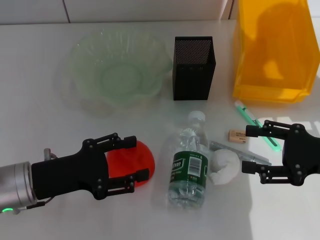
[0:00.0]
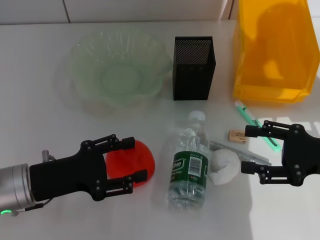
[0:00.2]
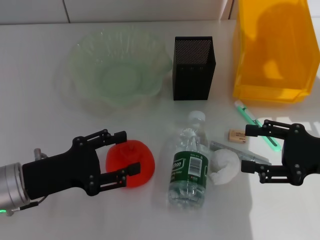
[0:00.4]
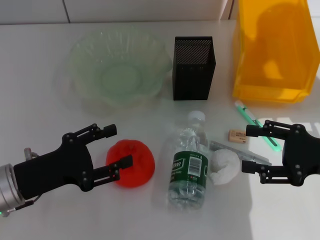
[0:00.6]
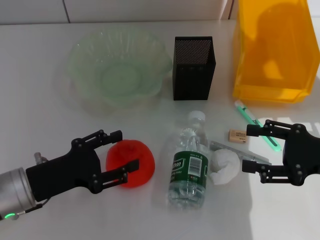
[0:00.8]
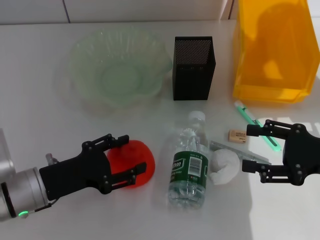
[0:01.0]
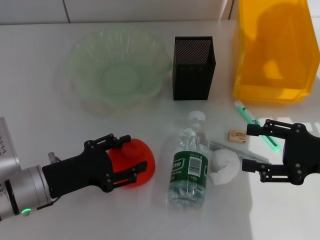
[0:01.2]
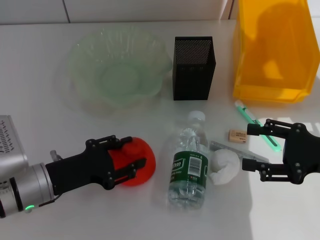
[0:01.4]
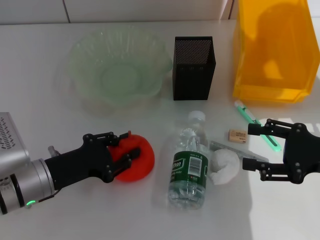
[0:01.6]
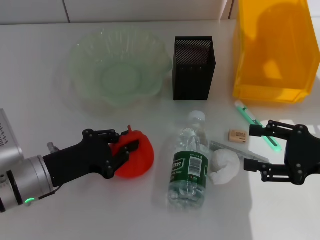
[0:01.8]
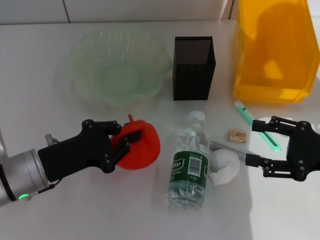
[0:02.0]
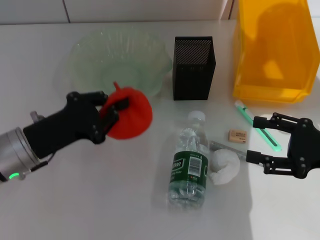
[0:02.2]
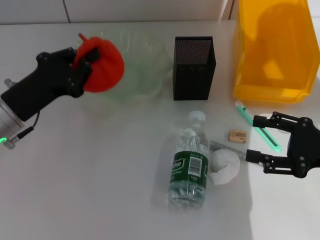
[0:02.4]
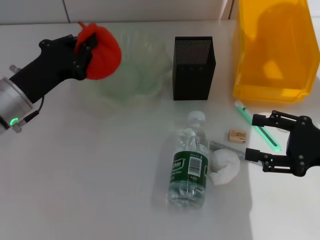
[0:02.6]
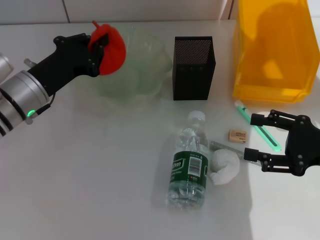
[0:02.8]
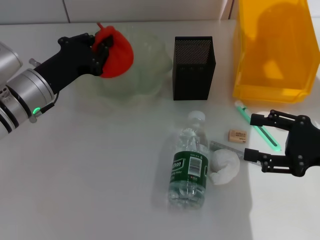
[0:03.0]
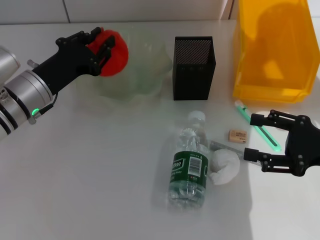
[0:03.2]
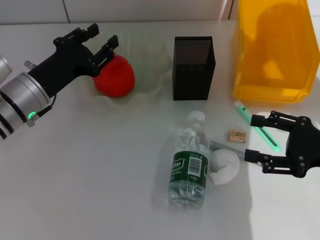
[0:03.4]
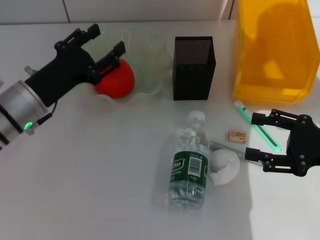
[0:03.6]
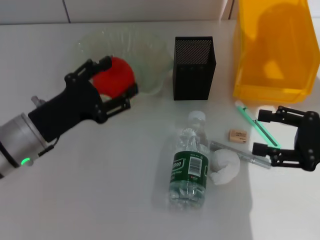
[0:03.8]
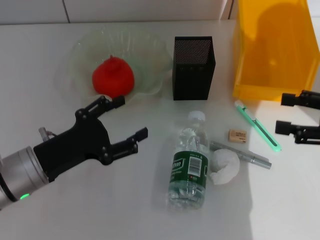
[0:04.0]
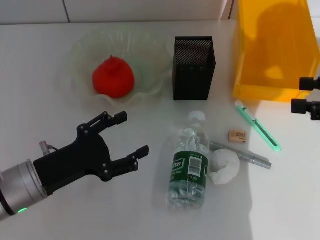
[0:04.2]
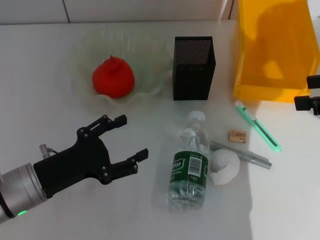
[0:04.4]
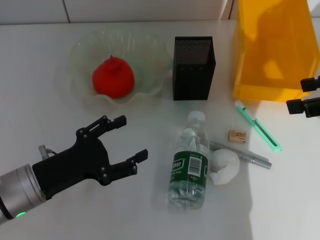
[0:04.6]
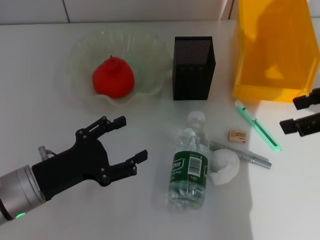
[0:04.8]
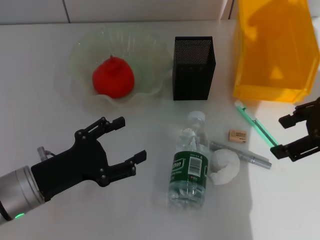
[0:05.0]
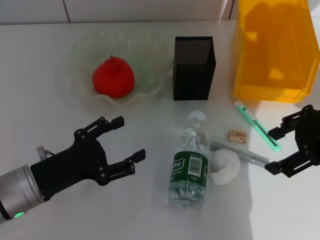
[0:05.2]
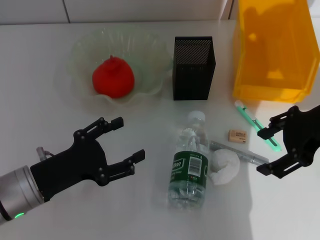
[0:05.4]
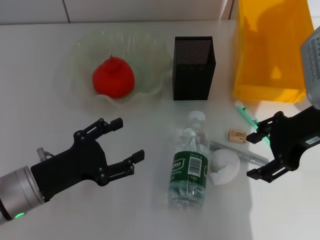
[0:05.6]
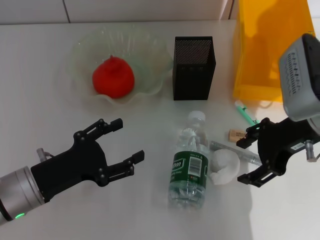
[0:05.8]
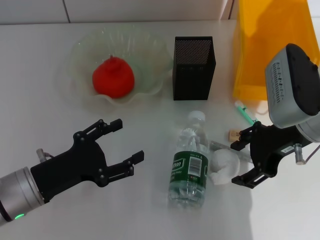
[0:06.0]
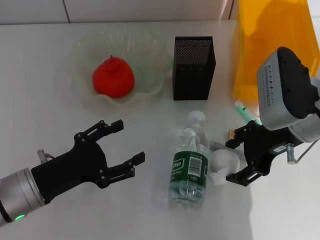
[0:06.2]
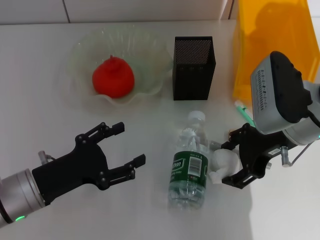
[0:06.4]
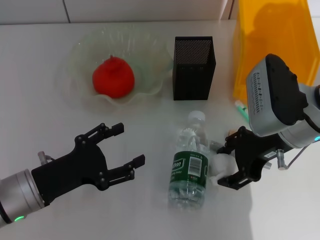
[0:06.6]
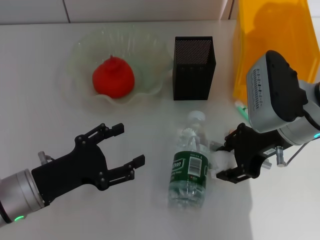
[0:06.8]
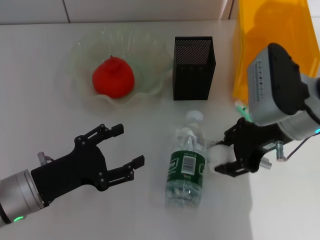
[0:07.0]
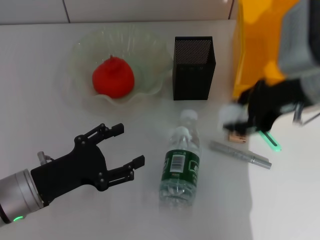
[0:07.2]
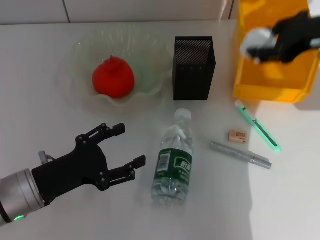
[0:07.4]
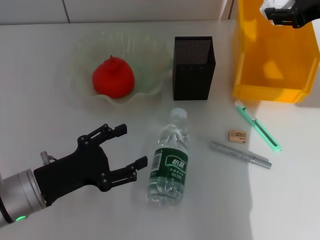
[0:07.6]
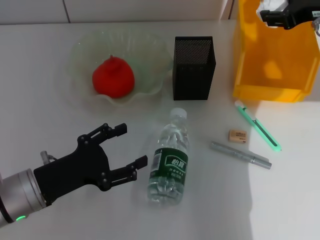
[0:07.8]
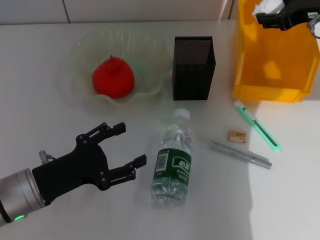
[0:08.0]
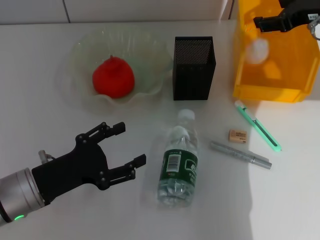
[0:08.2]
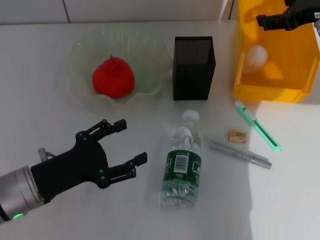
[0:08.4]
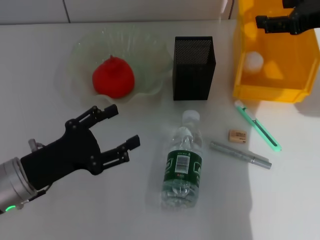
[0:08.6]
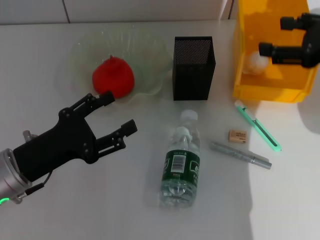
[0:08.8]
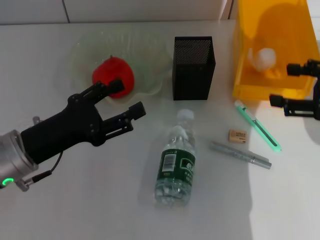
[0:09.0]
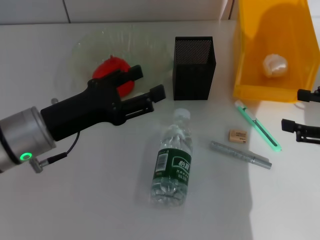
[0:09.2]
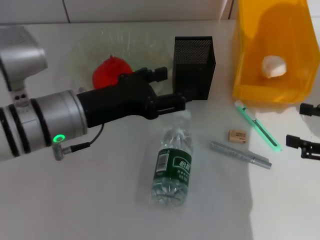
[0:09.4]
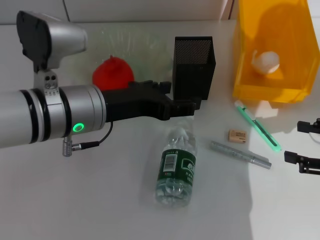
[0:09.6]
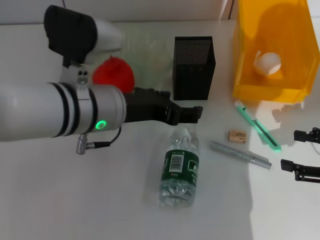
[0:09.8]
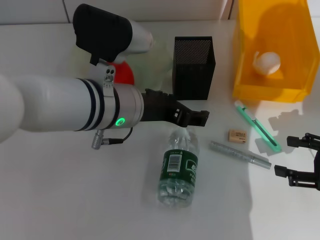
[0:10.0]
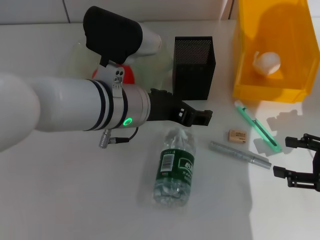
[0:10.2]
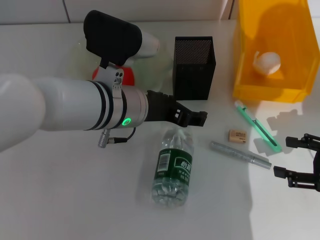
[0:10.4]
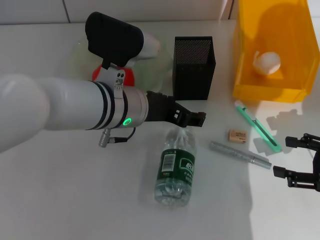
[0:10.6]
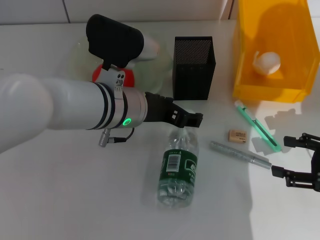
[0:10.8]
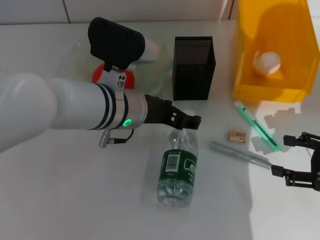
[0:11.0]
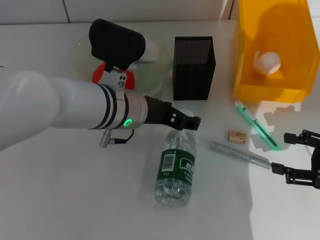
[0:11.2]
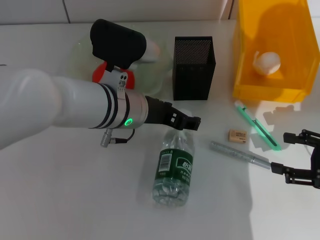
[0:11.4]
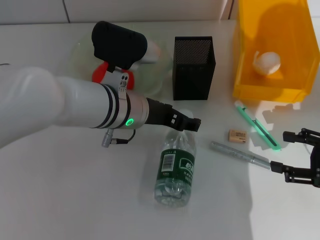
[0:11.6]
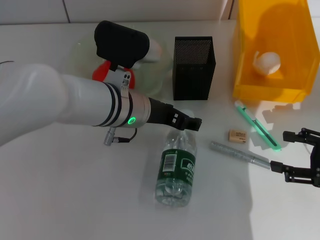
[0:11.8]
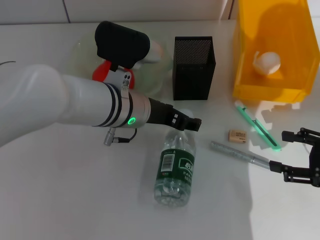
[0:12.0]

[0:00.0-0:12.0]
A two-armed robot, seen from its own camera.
Step, 0:00.0 to 0:01.6: Grab the orange with the left hand.
Step, 0:01.8 to 0:03.4: Place the orange into the fruit bowl with the left hand.
Step, 0:03.6 to 0:06.6: Grab the paper ball with the right hand.
Step, 0:06.8 to 0:08.2: Place the paper ball into the trash can with the right hand.
0:00.0 to 0:01.6: The left gripper closes its fingers.
0:01.6 to 0:03.0: The left gripper is displaced forward and upward by roughly 10 cm, and closes.
0:03.0 to 0:04.4: The left gripper heads backward, covering some 10 cm, and opens. Meanwhile the right gripper travels upward by some 15 cm.
0:04.4 to 0:06.0: The right gripper shifts approximately 15 cm to the left and downward.
0:06.0 to 0:07.6: The right gripper heads upward, forward and to the right, covering approximately 15 cm.
0:07.6 to 0:09.0: The right gripper goes about 15 cm backward, downward and to the right, and opens; the left gripper shifts by approximately 5 cm.
0:09.0 to 0:10.4: The left gripper heads to the right and forward, covering some 15 cm. Meanwhile the right gripper is displaced downward and backward by about 10 cm.
0:10.4 to 0:12.0: The grippers stay close to where they were, moving slightly.

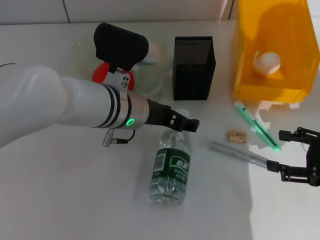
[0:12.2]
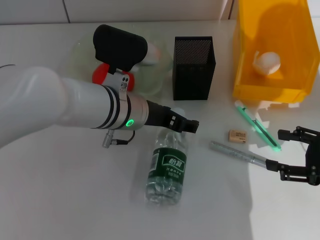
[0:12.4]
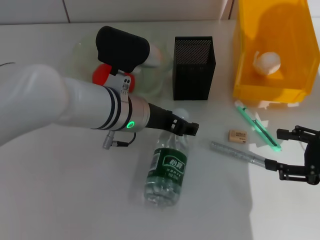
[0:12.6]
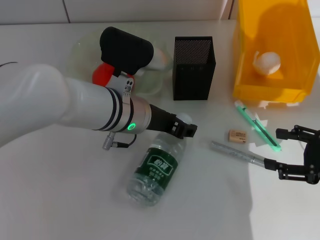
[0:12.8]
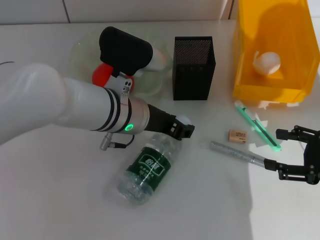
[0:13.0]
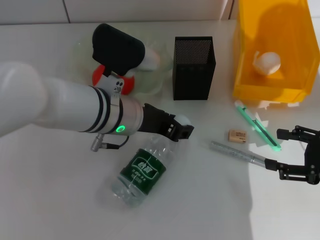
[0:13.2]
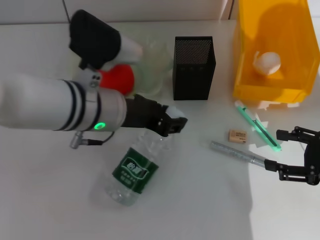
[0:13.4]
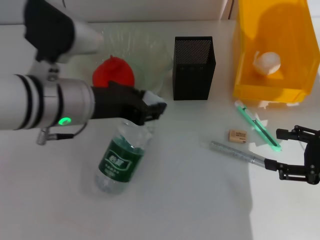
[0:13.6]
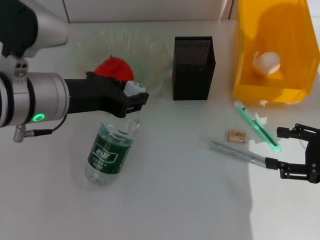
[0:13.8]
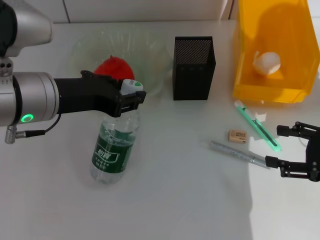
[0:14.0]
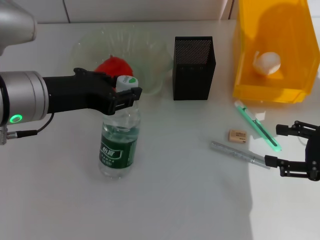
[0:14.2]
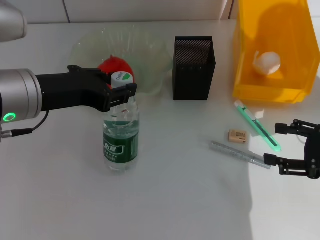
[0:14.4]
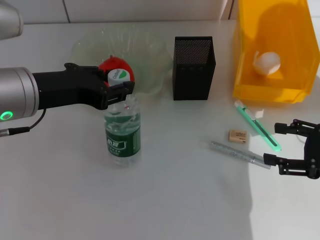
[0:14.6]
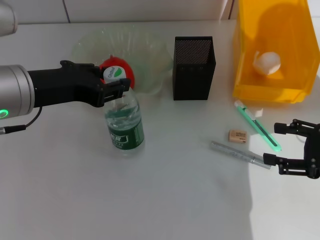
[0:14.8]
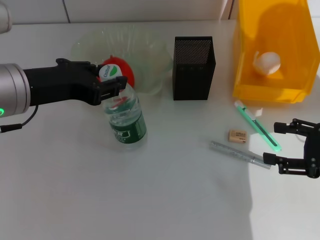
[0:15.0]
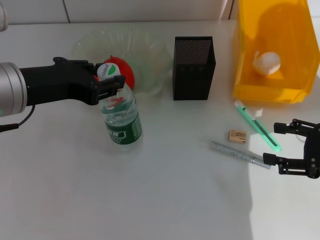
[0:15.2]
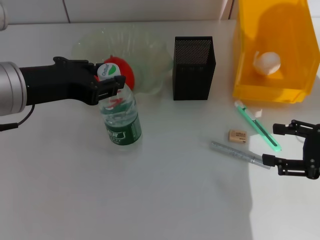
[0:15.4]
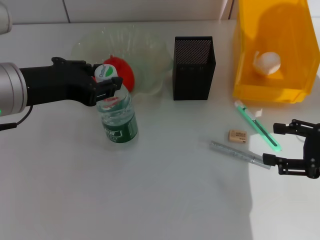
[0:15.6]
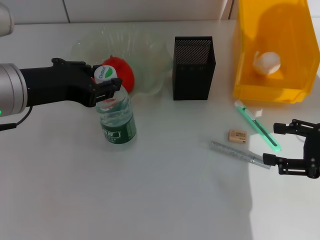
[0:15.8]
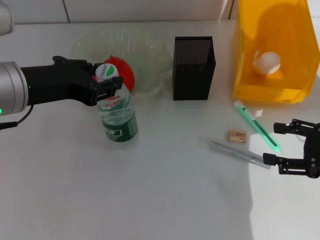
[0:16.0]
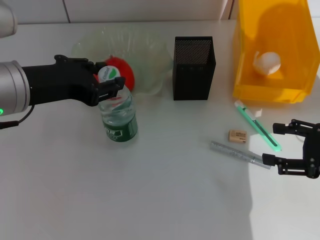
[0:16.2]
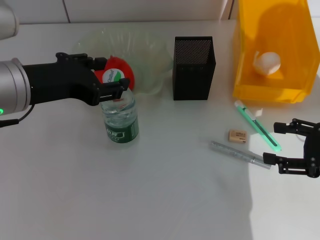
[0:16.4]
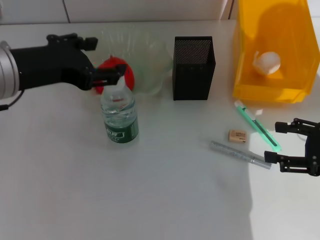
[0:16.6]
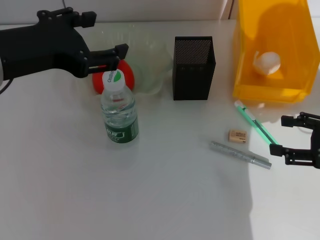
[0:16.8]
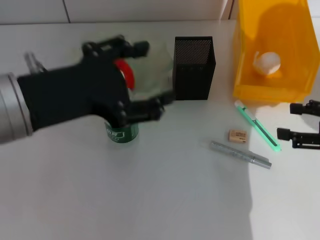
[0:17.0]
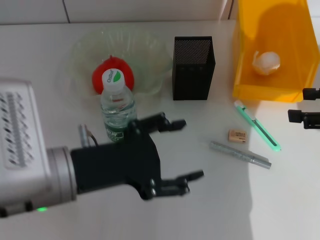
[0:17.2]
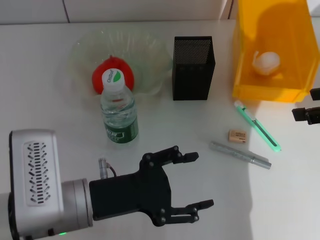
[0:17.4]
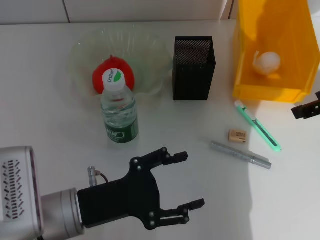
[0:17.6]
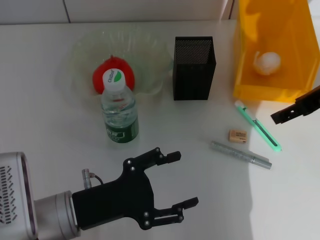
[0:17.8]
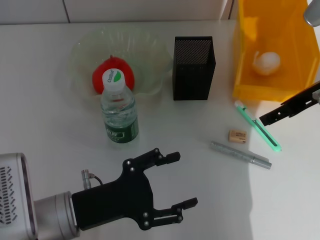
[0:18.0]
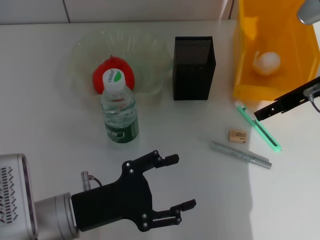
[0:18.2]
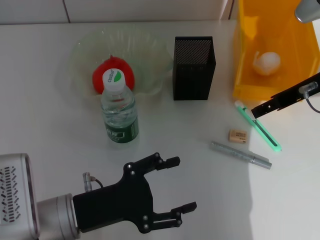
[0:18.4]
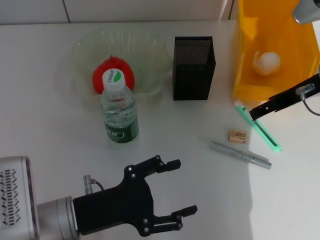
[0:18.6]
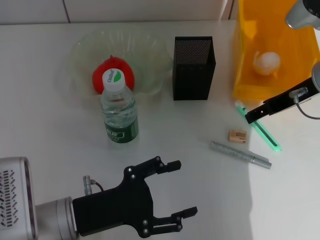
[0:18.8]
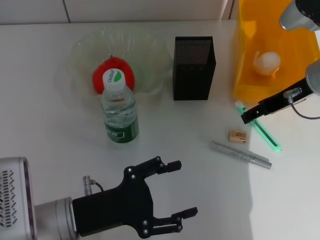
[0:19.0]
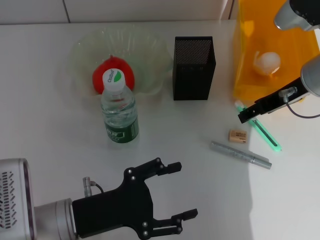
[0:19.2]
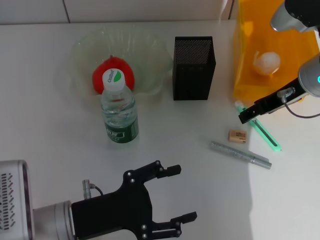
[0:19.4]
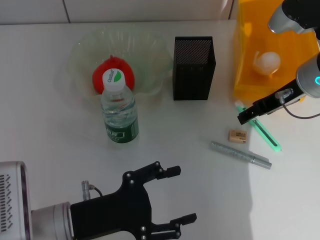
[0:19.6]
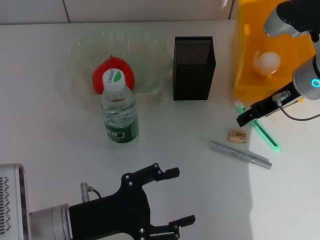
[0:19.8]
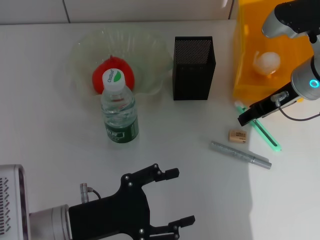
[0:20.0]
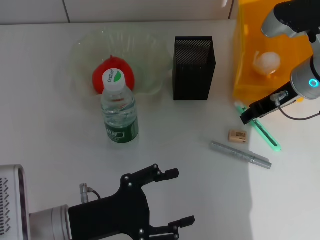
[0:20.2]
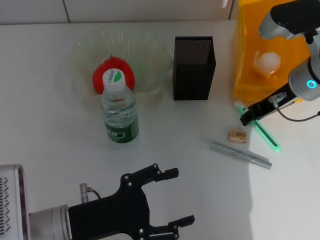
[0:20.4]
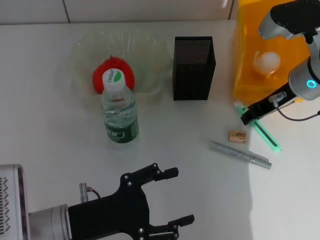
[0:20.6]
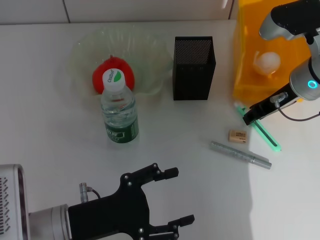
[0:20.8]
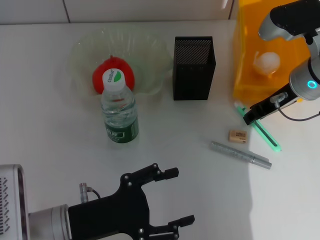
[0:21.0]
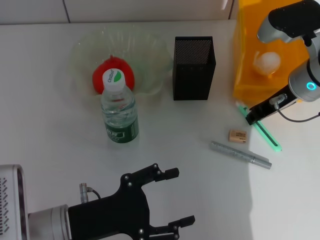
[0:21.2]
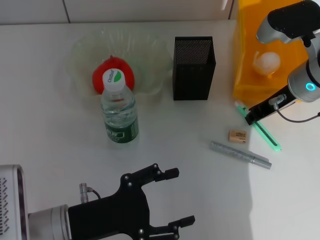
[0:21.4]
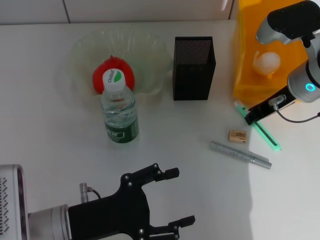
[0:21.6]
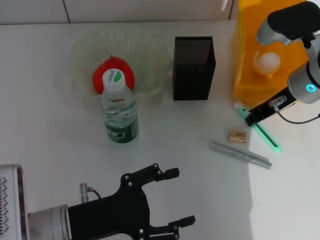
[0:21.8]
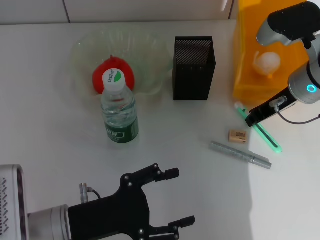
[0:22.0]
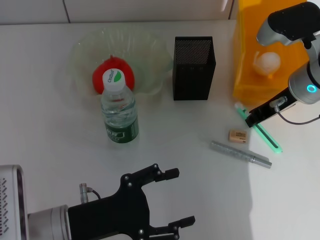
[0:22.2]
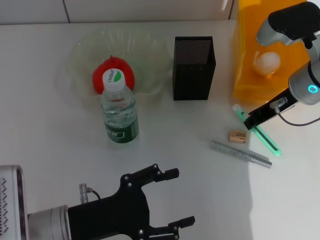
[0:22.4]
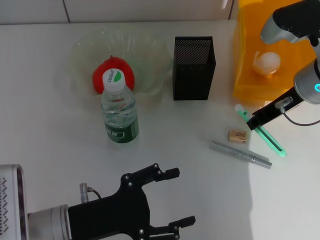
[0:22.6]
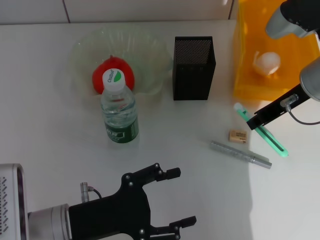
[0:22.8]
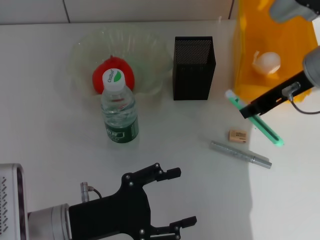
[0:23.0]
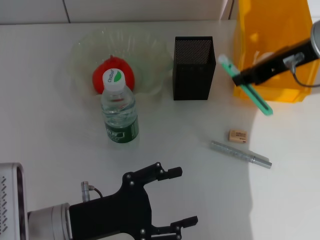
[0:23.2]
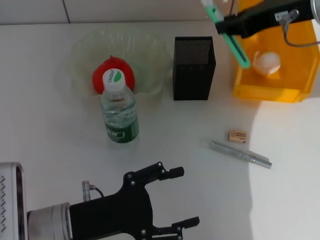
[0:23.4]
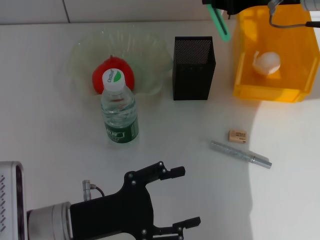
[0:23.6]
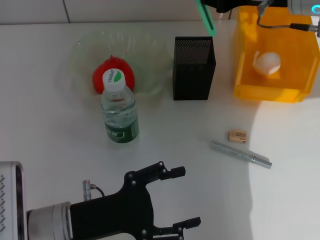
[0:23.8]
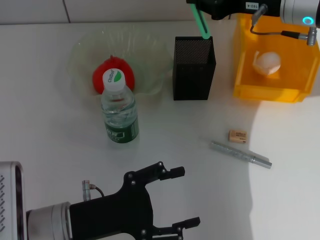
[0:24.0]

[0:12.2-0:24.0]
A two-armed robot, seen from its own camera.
Step, 0:13.0 to 0:16.4: Place the water bottle on the table with the left hand.
Step, 0:16.6 to 0:21.4: Grab the blue utility knife with the right hand.
0:12.2 to 0:13.6: The left gripper goes some 10 cm to the left and upward, and closes its fingers.
0:13.6 to 0:15.2: The left gripper is displaced to the left by roughly 5 cm.
0:15.2 to 0:16.6: The left gripper opens up.
0:16.6 to 0:18.2: The right gripper travels forward, to the left and upward by roughly 15 cm. Meanwhile the left gripper is displaced downward and backward by some 20 cm.
0:18.2 to 0:19.6: The grippers stay close to where they were, moving slightly.
0:19.6 to 0:21.0: The right gripper closes.
0:21.0 to 0:22.6: The grippers stay close to where they were, moving slightly.
0:22.6 to 0:24.0: The right gripper goes approximately 5 cm upward.
